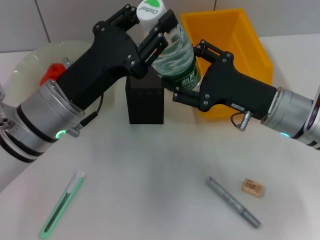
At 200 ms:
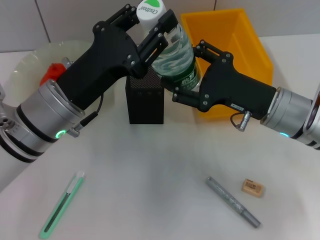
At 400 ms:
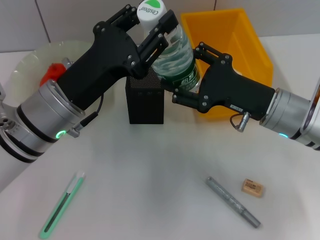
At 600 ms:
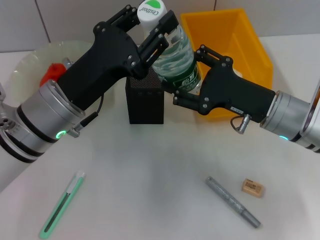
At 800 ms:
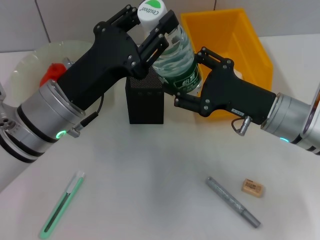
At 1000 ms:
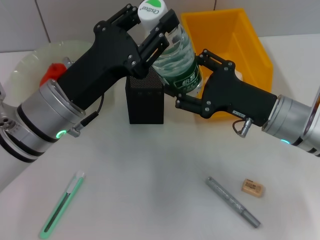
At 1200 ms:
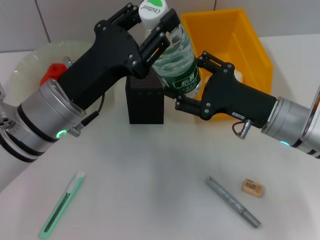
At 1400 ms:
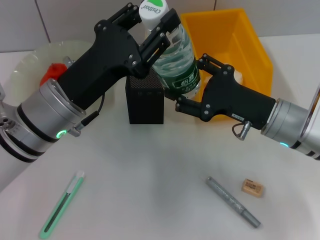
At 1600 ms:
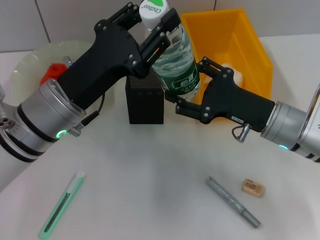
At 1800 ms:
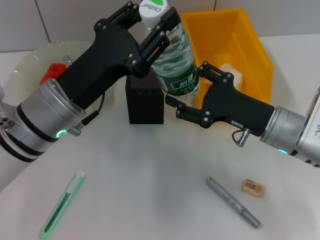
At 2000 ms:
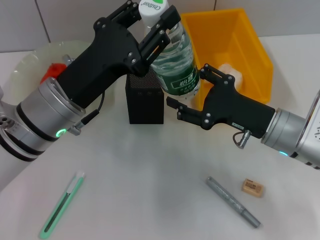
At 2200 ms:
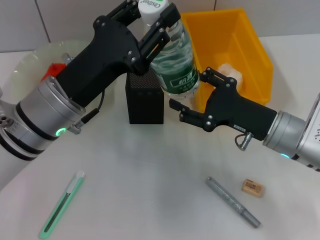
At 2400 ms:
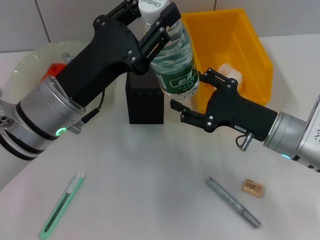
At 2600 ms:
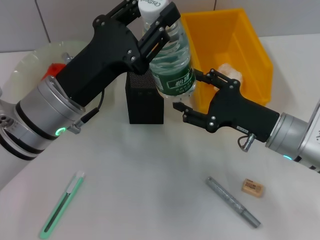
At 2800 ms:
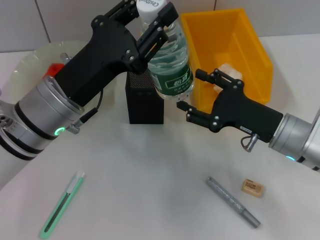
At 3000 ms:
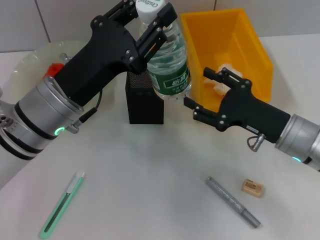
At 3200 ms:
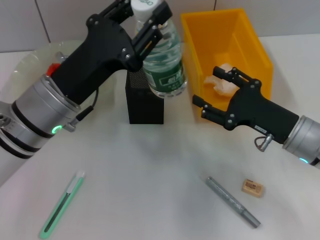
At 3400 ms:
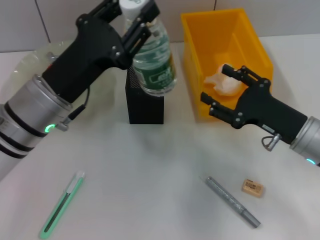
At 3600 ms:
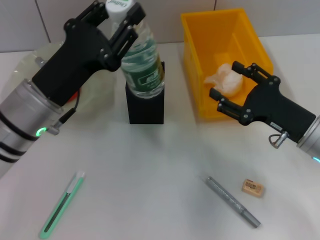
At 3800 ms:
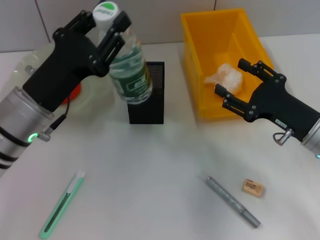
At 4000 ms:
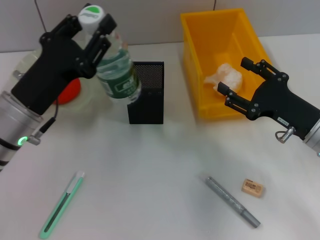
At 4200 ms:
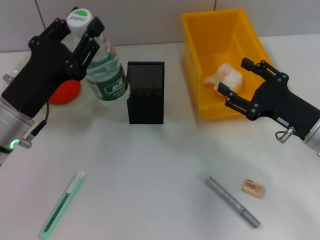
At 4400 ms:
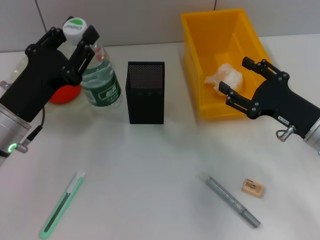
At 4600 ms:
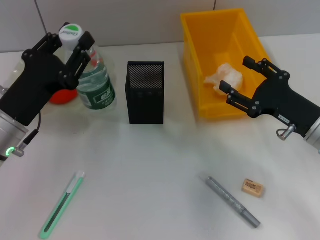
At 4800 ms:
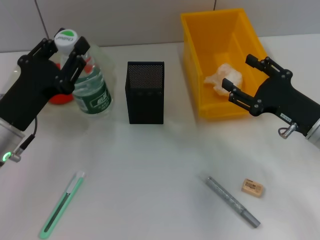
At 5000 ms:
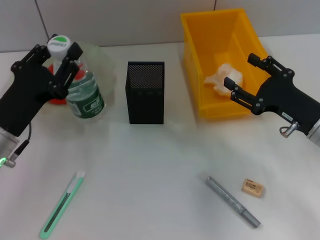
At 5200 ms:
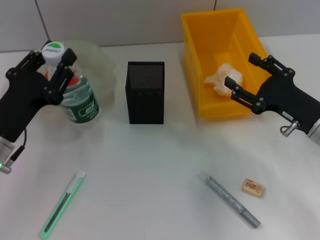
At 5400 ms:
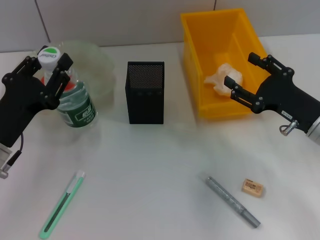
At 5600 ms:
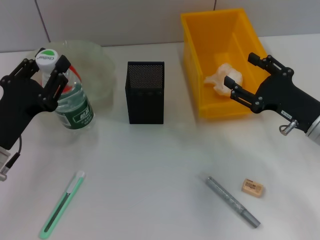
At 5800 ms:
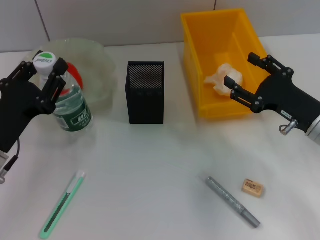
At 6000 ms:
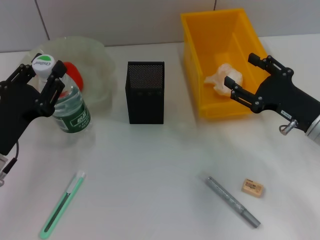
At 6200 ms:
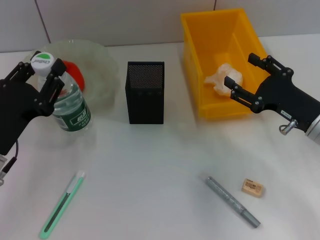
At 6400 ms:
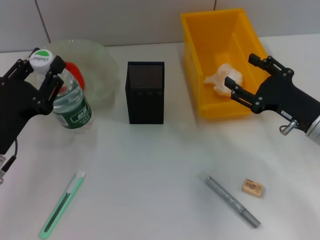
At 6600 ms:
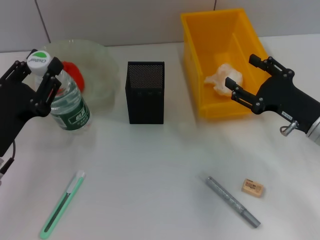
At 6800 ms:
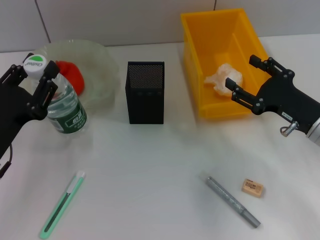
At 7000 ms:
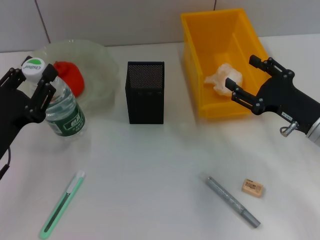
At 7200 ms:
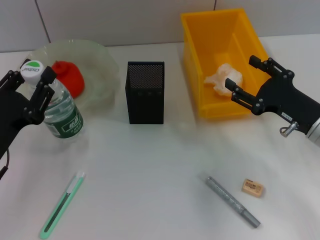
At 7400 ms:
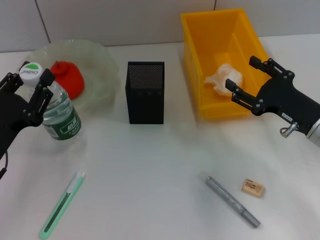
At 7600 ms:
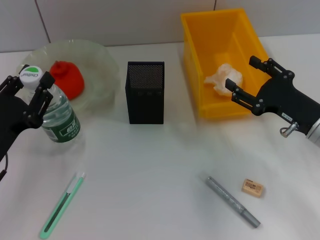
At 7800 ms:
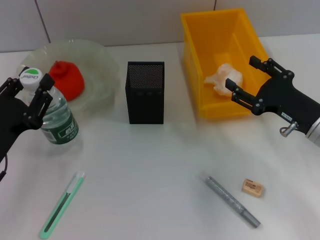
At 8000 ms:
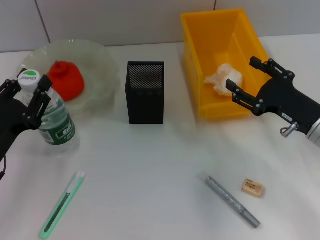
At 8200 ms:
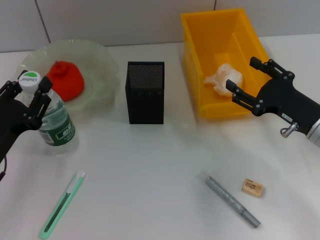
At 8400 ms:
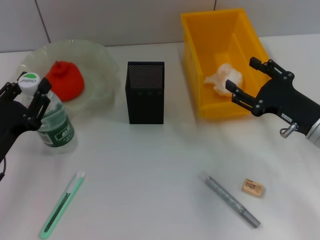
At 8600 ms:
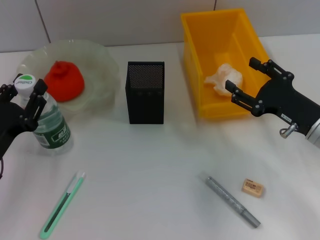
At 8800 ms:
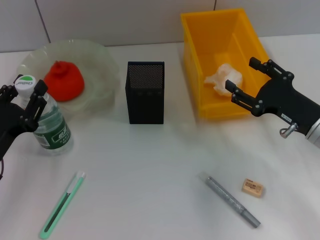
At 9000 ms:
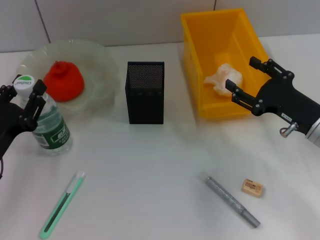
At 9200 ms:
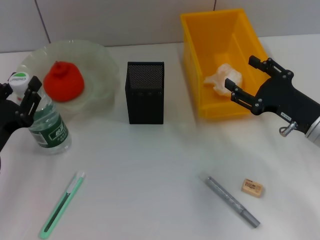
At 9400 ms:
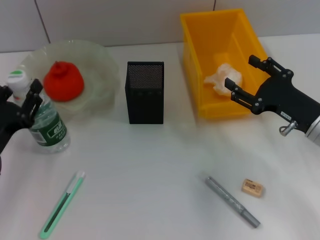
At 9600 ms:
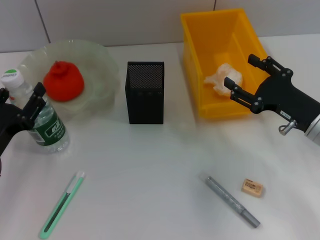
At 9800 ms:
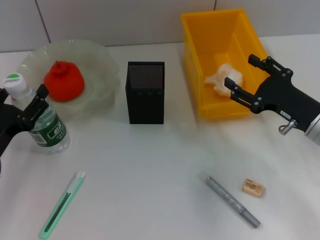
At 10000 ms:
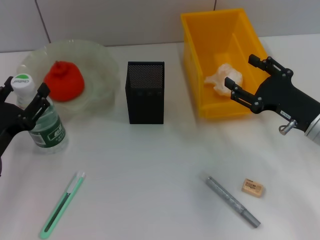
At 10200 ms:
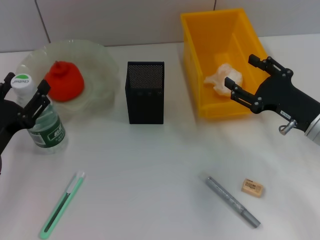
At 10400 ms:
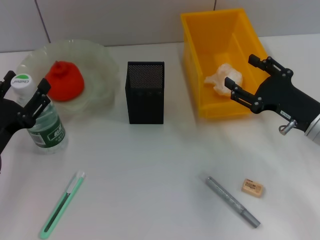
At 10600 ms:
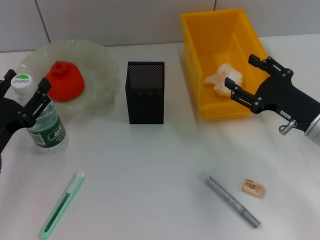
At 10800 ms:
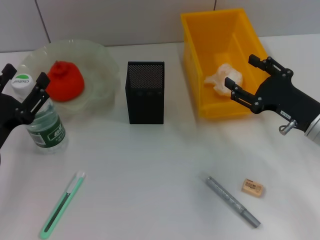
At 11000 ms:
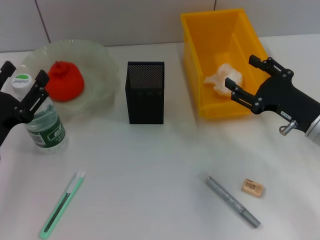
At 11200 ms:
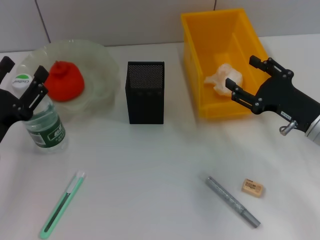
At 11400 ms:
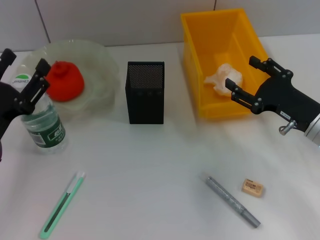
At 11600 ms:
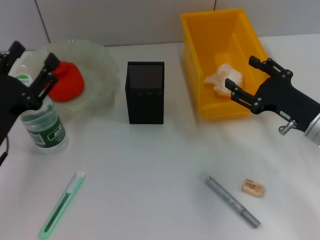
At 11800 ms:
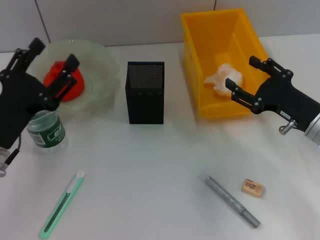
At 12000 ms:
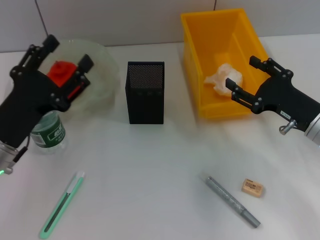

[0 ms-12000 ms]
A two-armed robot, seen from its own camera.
Step, 0 ms to 2600 ms: Pass the water bottle from the right hand to the left hand.
Step, 2800 ms to 10800 ms: Place the water bottle on the table with the left hand.
0 ms to 3000 ms: The grippers stay close to where they were, moving slightly.
3000 ms to 4400 ms: The left gripper moves to the left, roughly 5 cm.
4400 ms to 6000 ms: The left gripper ends up about 5 cm from where it was.
6000 ms to 9000 ms: The grippers make only small movements.
9000 ms to 10400 ms: The left gripper opens up.
10400 ms to 12000 ms: The left gripper ends up about 5 cm from where it was.

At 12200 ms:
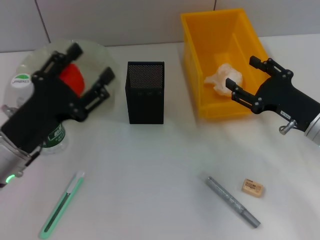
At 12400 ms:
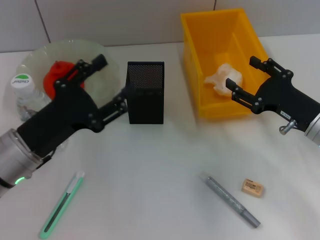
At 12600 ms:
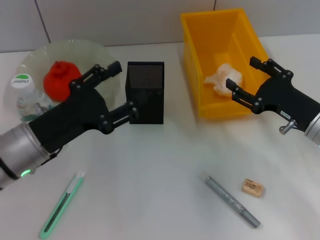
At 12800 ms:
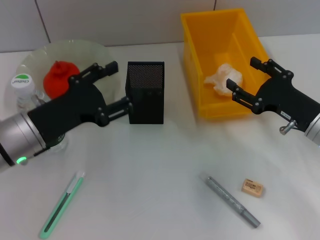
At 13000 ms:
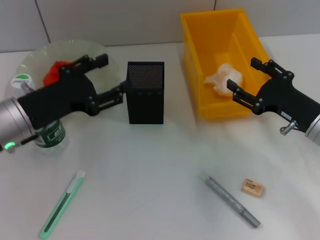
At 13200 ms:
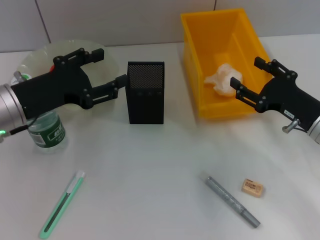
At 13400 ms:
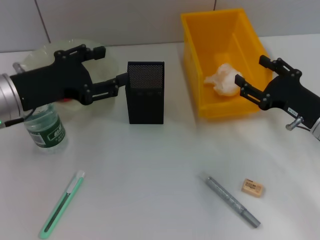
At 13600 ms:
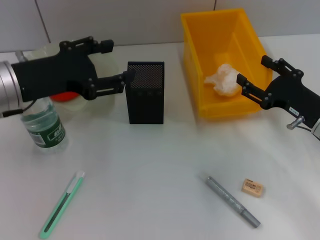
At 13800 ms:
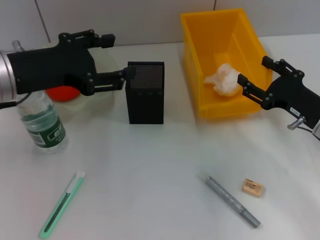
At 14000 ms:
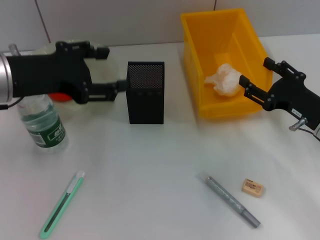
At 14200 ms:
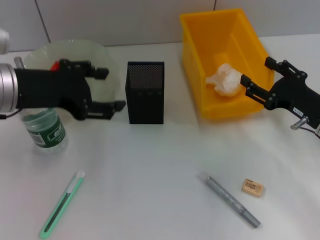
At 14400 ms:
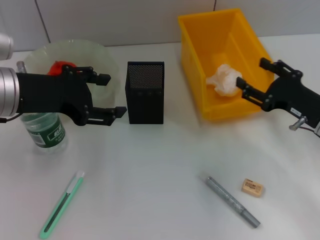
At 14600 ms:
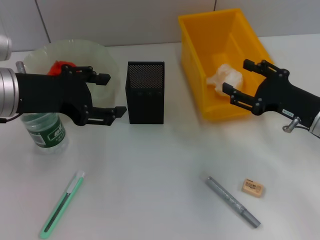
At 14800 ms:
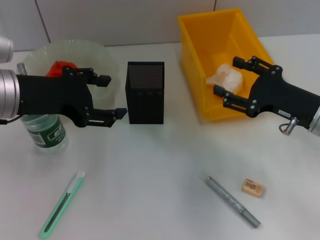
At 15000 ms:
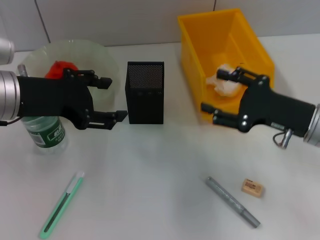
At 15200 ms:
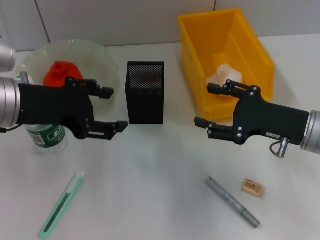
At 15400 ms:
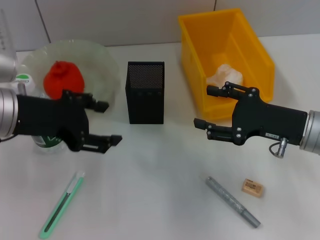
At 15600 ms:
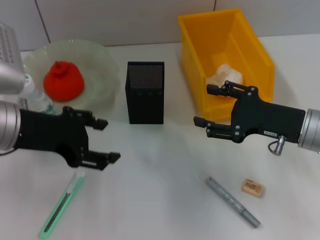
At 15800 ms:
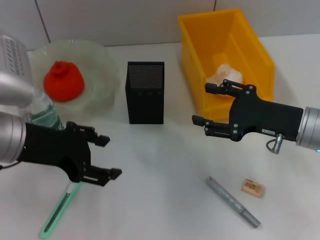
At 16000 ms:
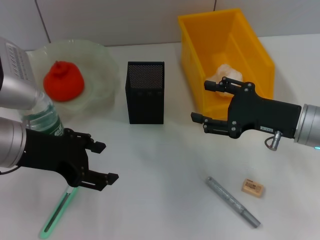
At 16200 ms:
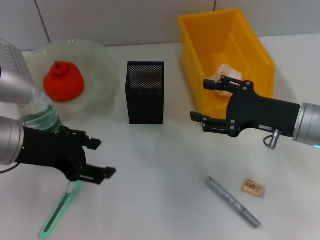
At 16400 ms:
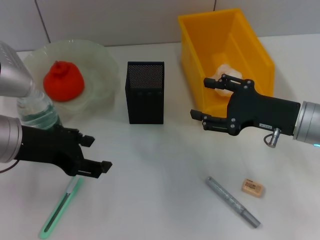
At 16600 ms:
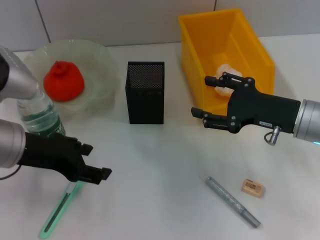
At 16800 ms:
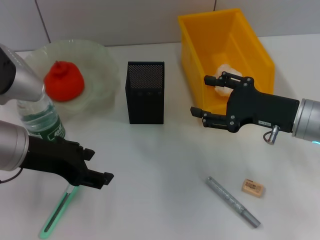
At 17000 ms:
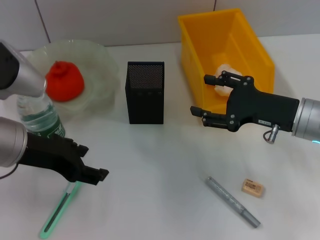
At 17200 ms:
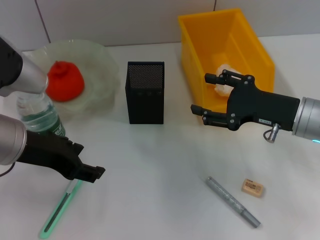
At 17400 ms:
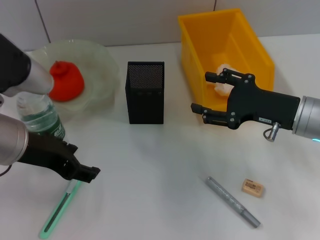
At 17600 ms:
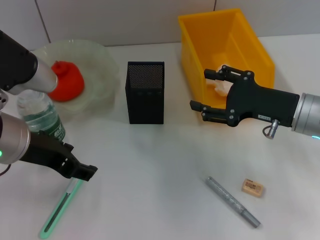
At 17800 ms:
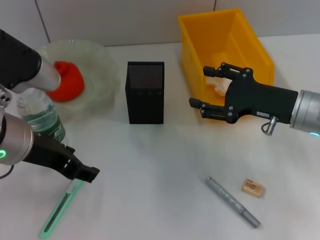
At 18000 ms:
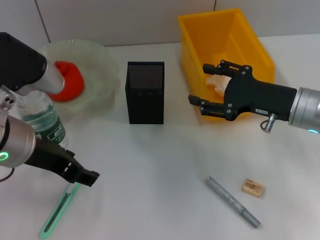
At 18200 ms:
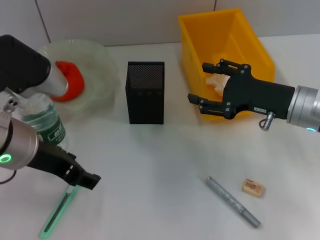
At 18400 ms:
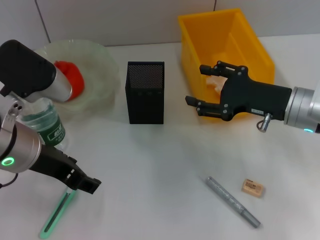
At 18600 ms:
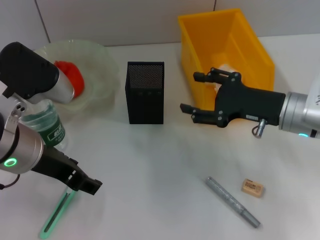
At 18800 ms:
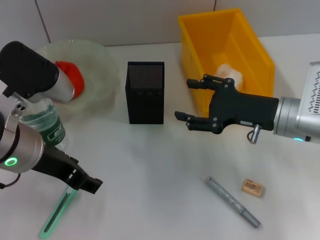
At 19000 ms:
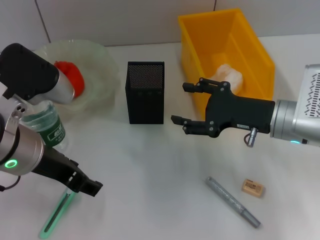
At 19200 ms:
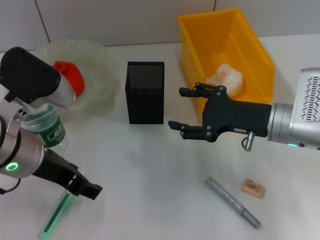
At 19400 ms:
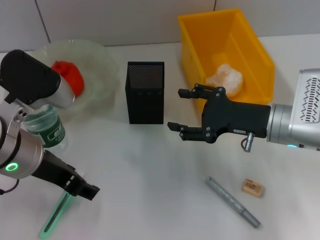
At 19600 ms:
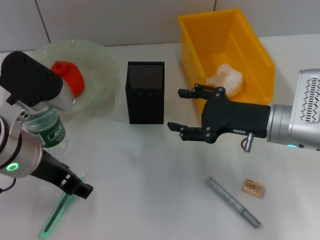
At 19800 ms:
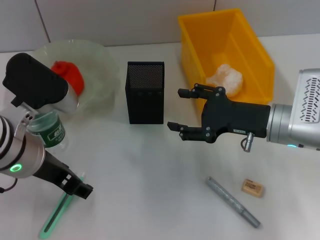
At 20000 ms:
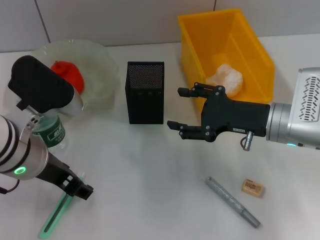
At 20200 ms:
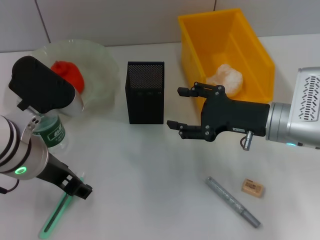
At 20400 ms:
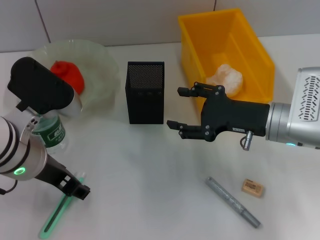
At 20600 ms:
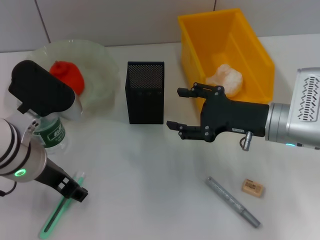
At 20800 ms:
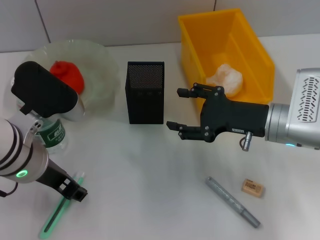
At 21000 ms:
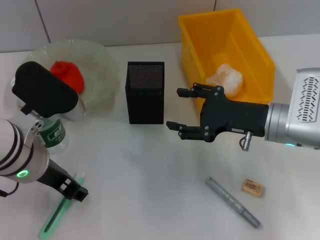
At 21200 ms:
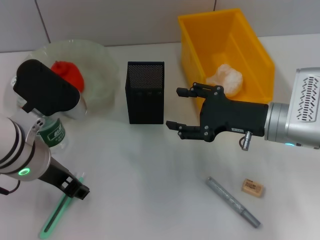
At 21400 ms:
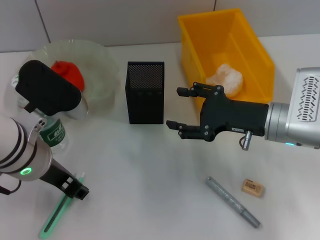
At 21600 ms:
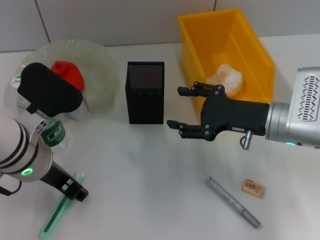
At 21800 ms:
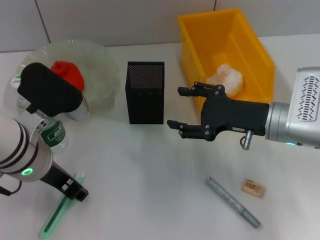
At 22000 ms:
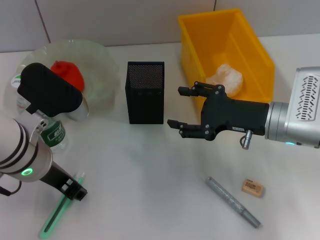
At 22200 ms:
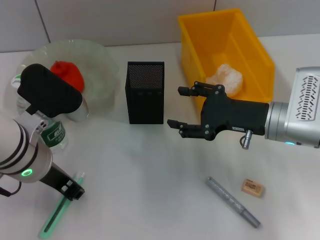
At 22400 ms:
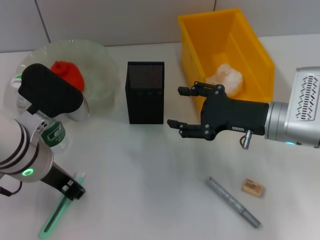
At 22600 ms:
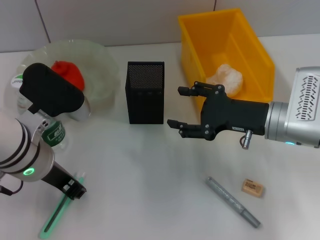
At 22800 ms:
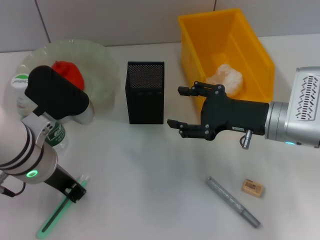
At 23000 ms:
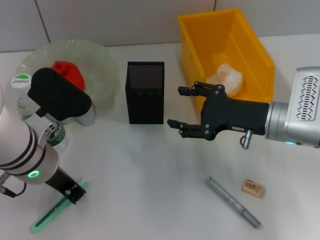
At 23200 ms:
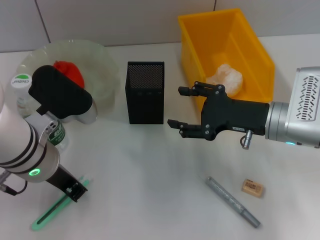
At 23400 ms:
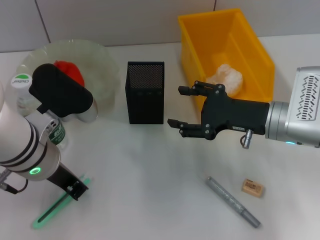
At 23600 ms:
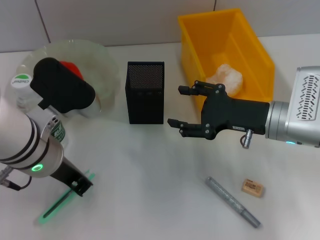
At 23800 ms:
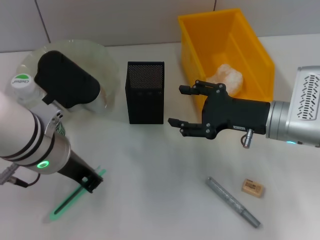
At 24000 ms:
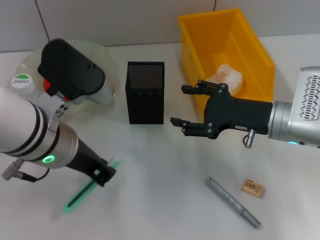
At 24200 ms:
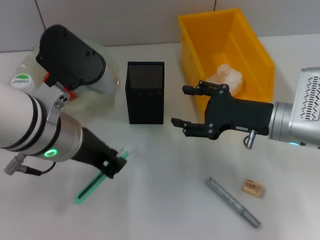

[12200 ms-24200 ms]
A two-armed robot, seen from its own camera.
Step, 12200 ms to 22600 ms: Grab the blue utility knife with the left hand.
12200 ms to 13800 ms: The left gripper heads upward and forward, covering some 15 cm.
13800 ms to 15200 ms: The right gripper ends up approximately 5 cm from where it was.
16600 ms to 18200 ms: The grippers make only small movements.
18200 ms to 21200 ms: The grippers move only a little.
21200 ms to 22600 ms: The left gripper closes.
22600 ms to 24200 ms: The left gripper moves roughly 5 cm.
